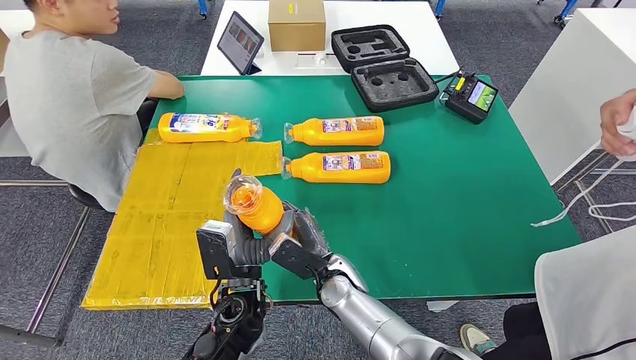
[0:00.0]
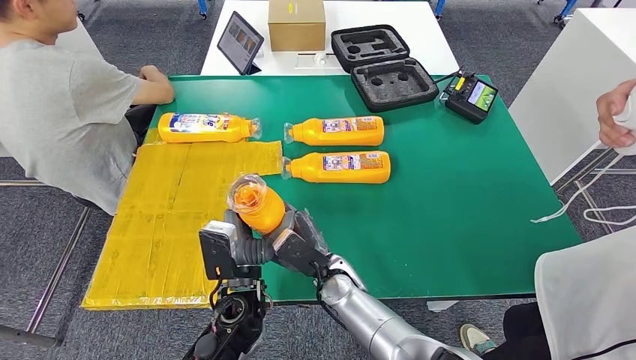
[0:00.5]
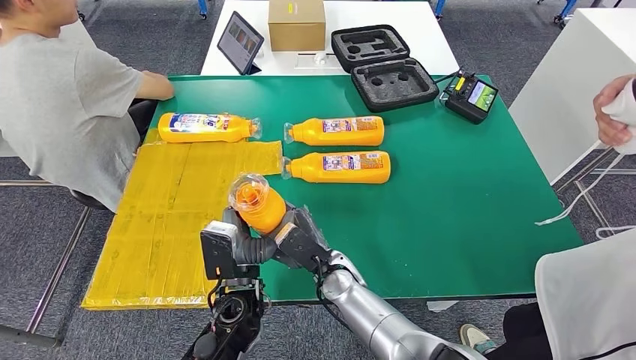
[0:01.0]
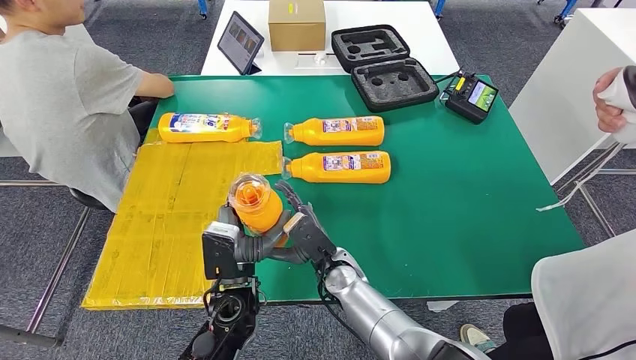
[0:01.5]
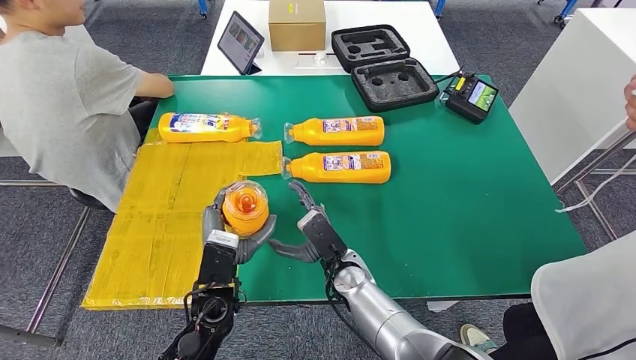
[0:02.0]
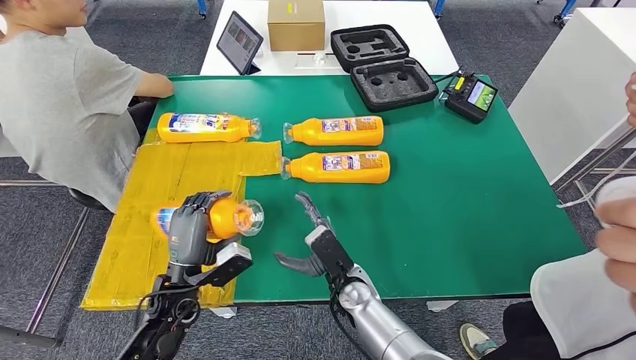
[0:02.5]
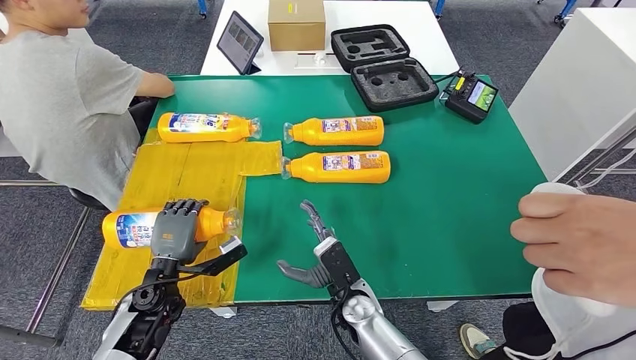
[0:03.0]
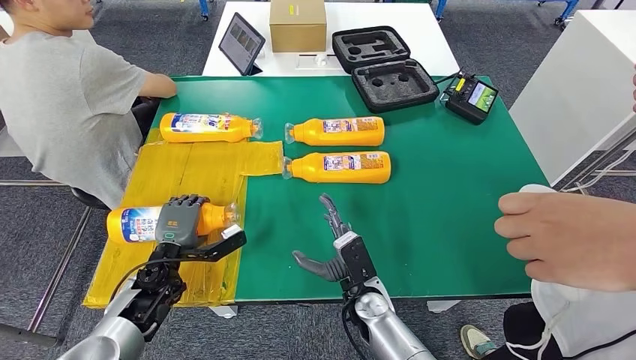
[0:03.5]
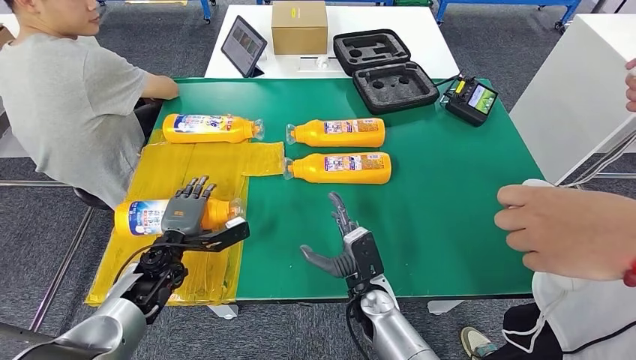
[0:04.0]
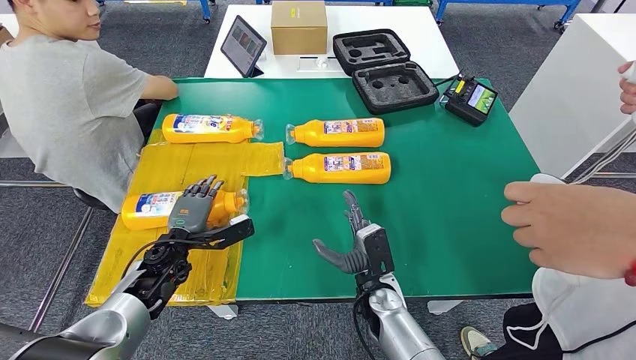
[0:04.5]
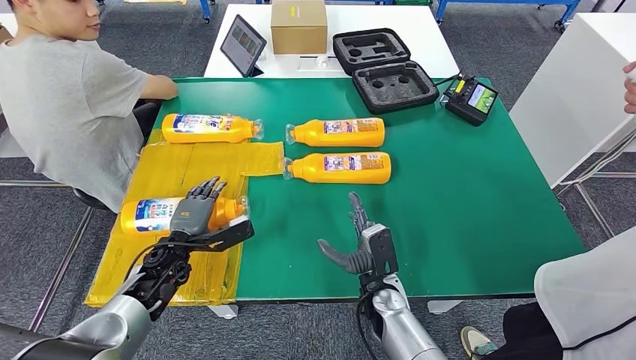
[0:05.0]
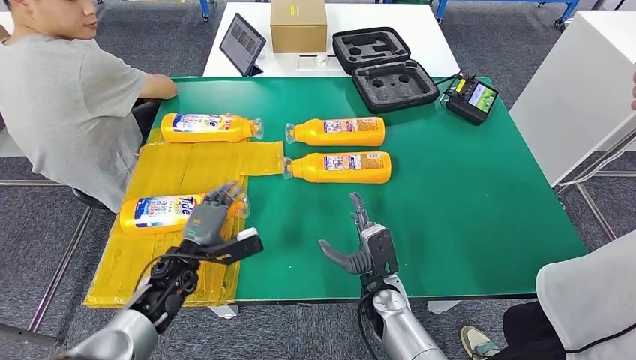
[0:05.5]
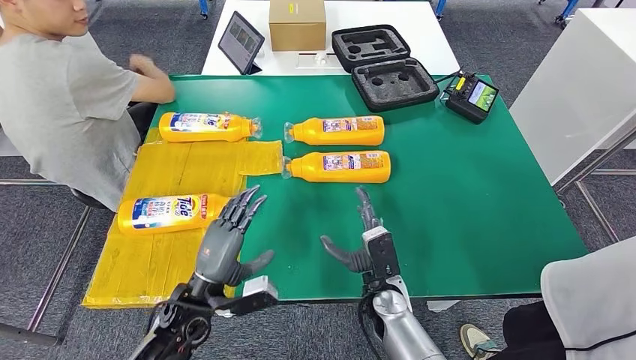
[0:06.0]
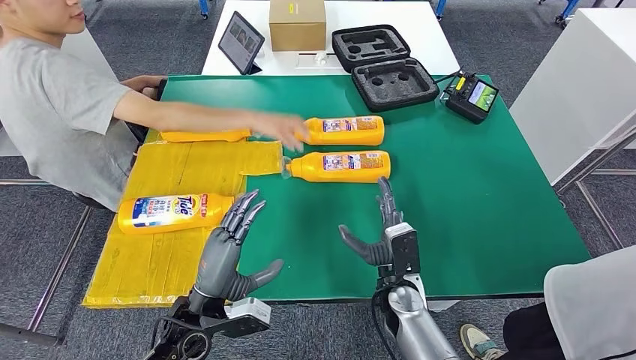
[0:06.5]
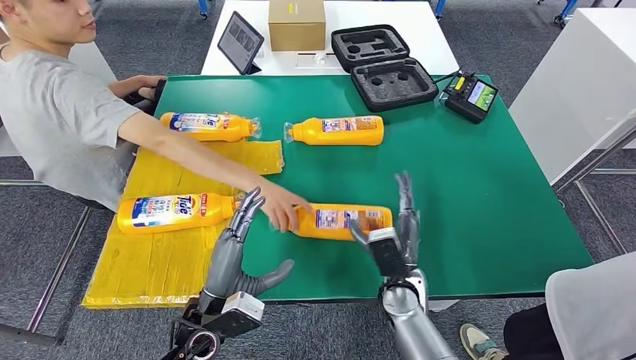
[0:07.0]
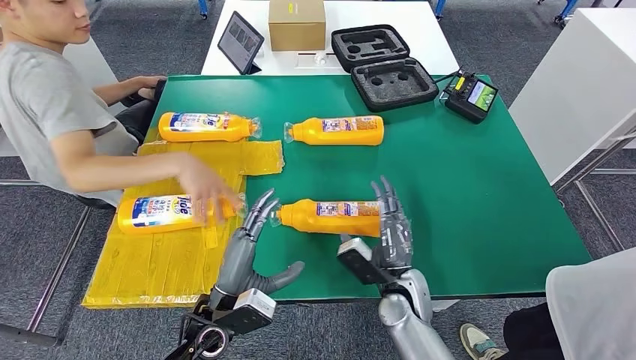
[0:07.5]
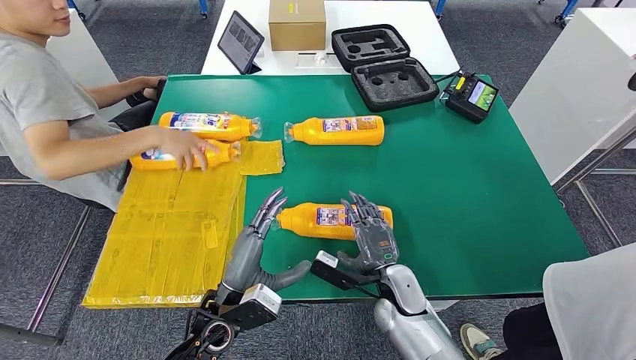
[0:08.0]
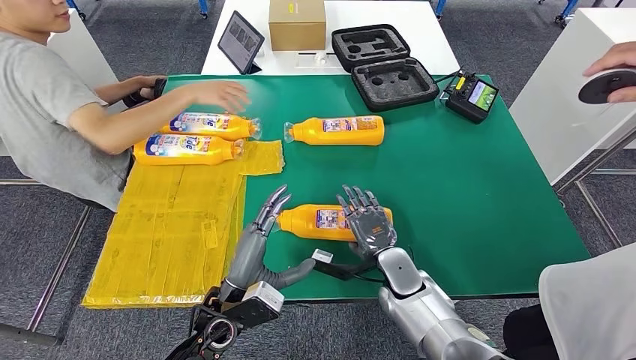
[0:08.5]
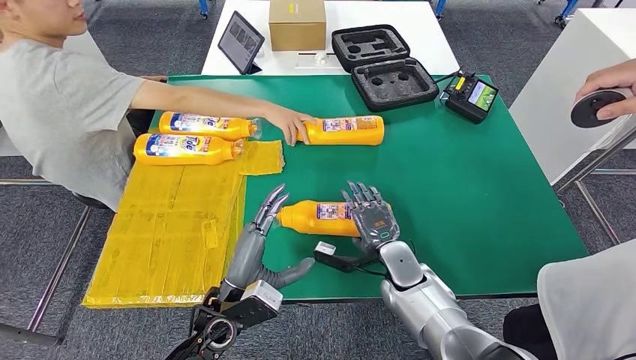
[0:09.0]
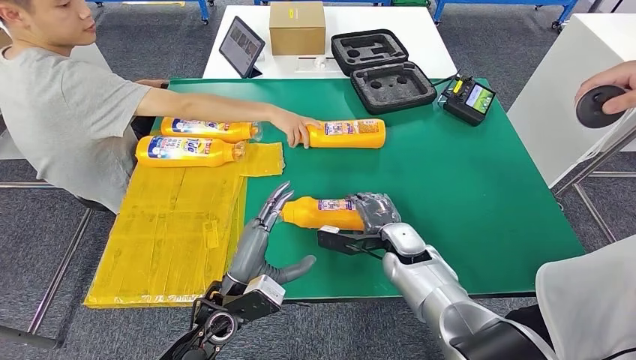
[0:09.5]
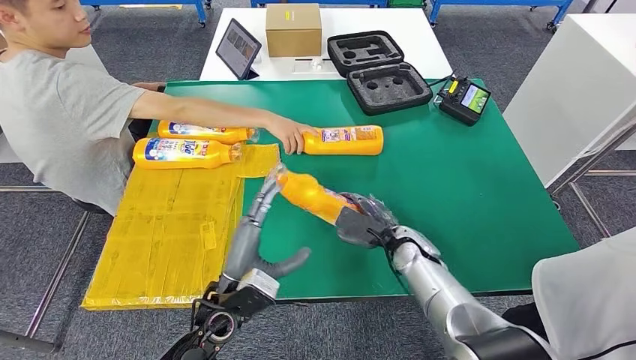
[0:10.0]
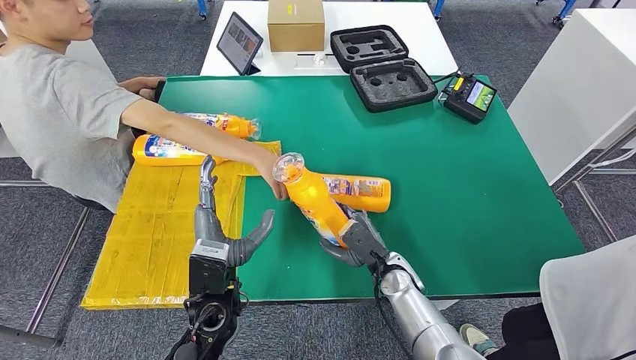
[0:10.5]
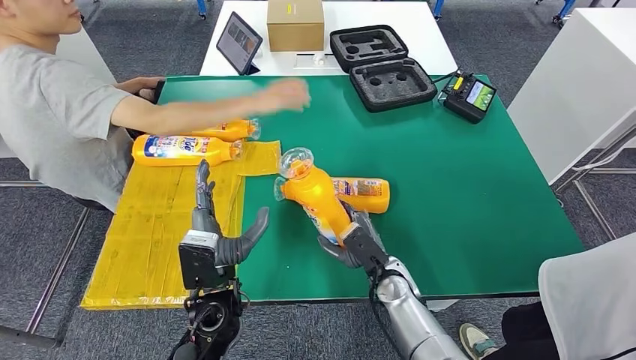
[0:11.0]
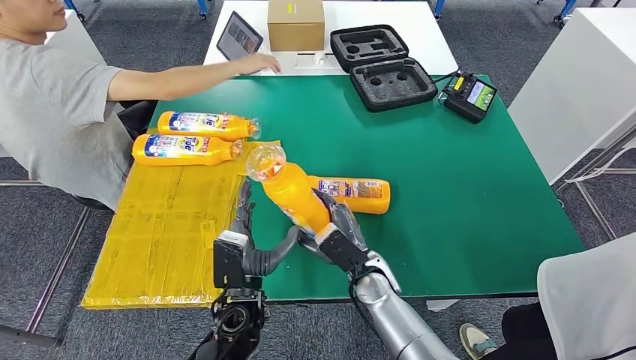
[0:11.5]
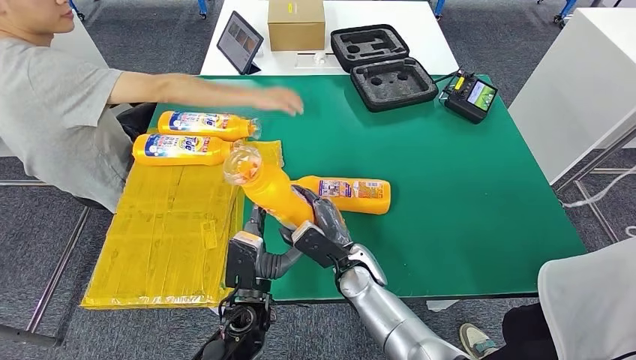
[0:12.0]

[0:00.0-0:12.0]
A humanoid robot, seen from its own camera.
Step, 0:00.0 to 0:04.5: Flip the bottle to face forward.
0:00.0 to 0:02.0: The left hand is displaced to the left by approximately 5 cm.
0:06.0 to 0:08.0: The left hand goes about 5 cm to the right.

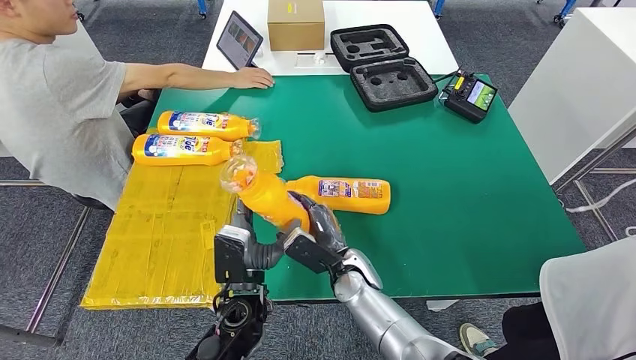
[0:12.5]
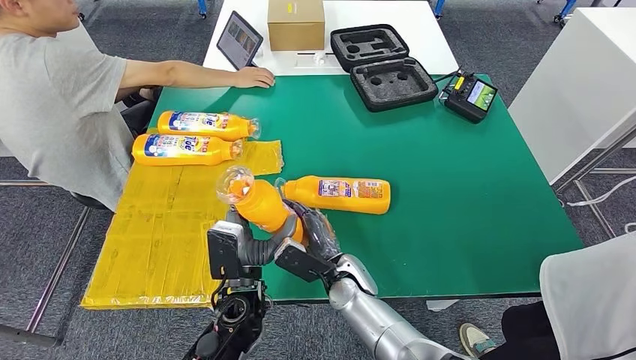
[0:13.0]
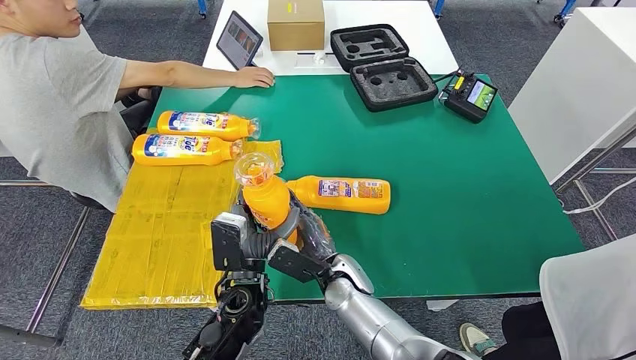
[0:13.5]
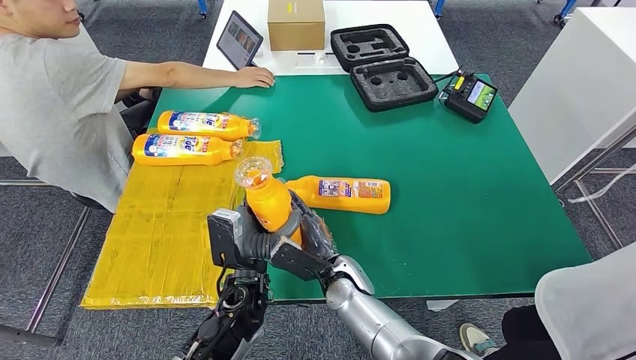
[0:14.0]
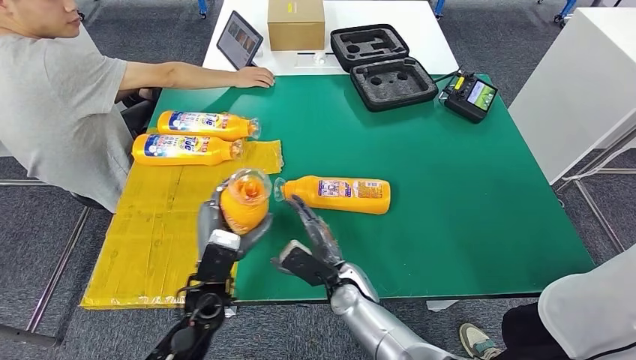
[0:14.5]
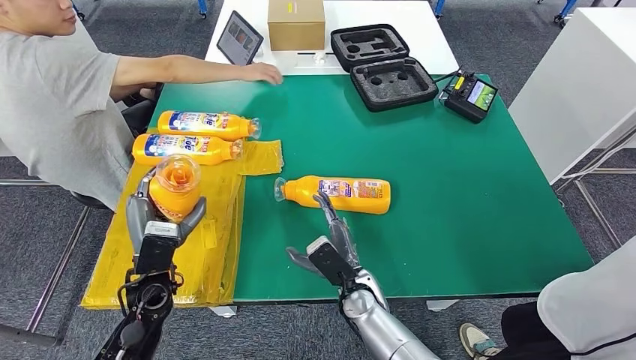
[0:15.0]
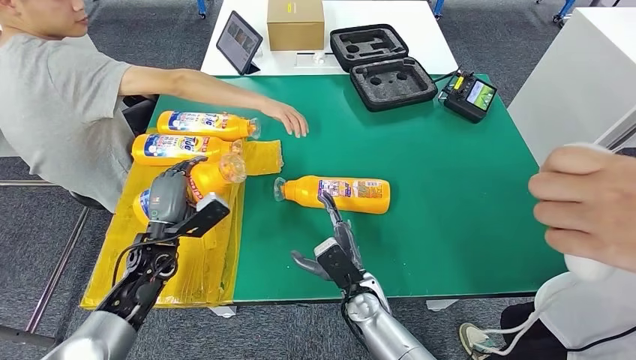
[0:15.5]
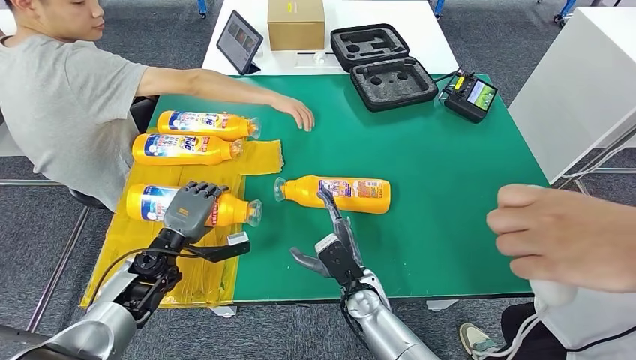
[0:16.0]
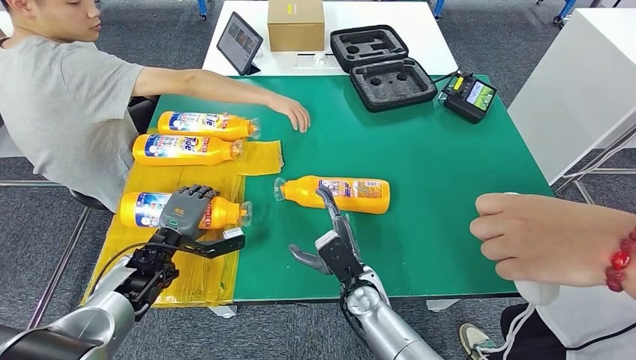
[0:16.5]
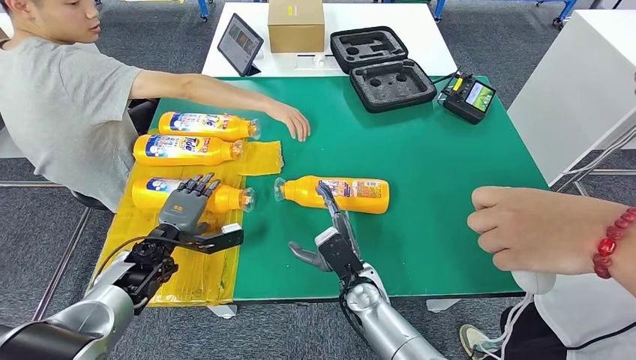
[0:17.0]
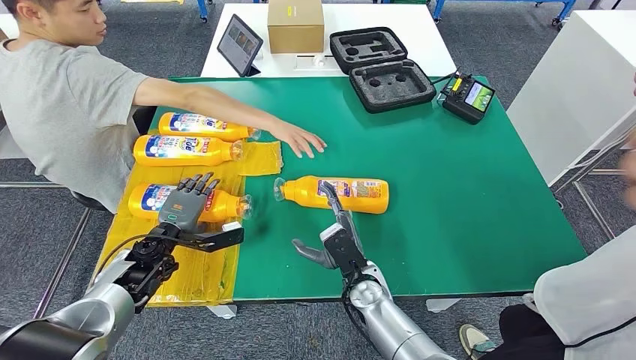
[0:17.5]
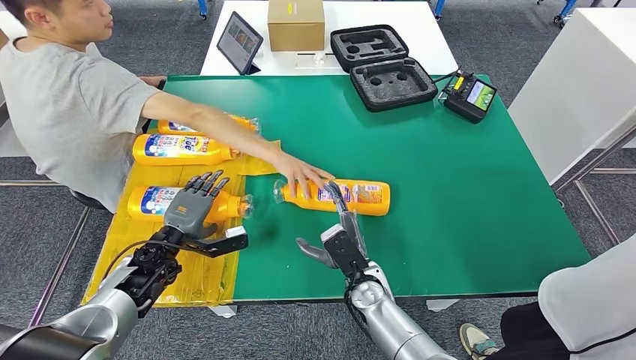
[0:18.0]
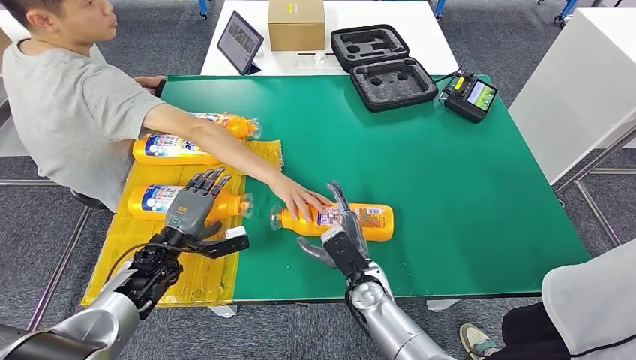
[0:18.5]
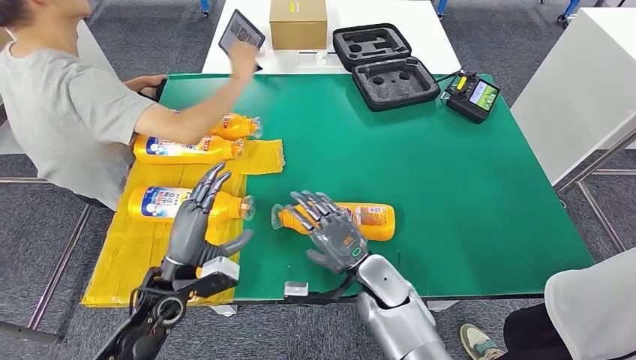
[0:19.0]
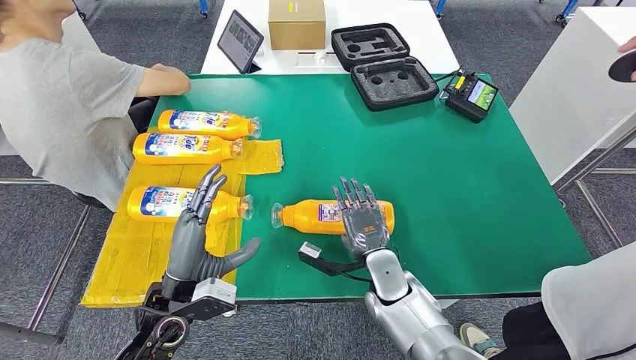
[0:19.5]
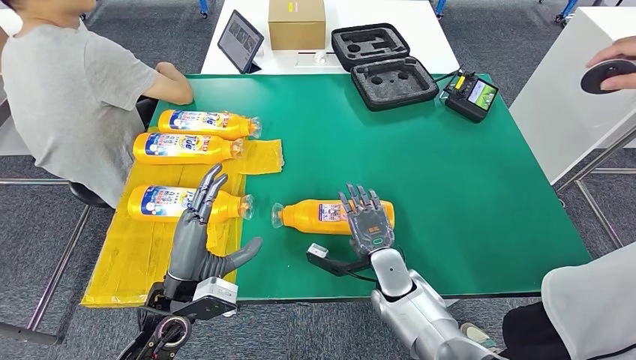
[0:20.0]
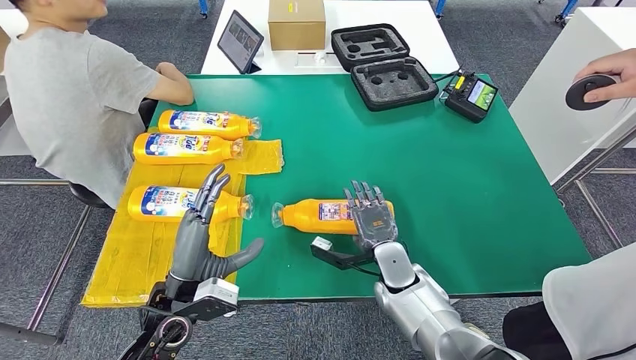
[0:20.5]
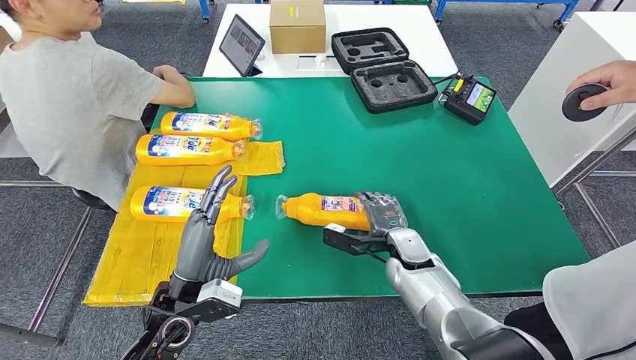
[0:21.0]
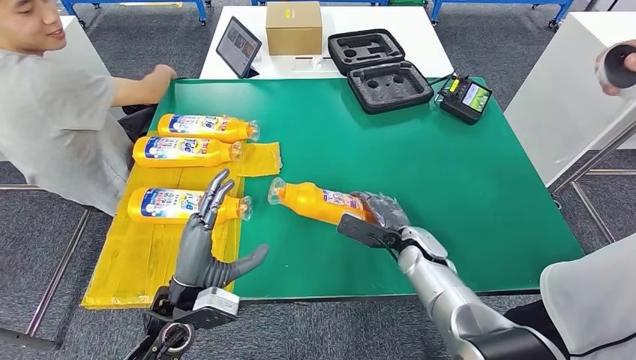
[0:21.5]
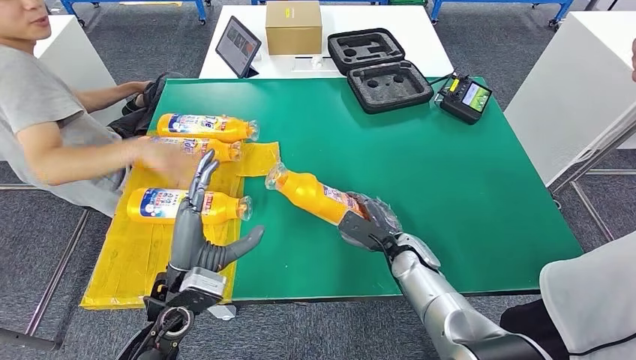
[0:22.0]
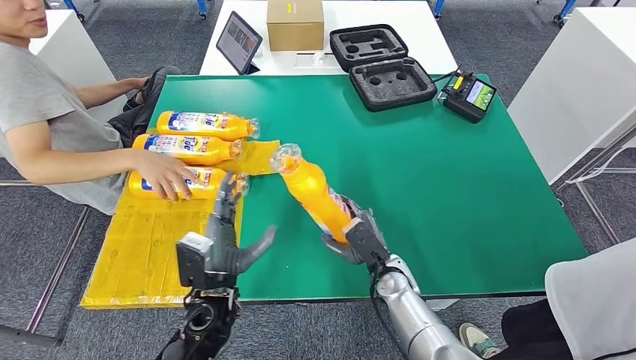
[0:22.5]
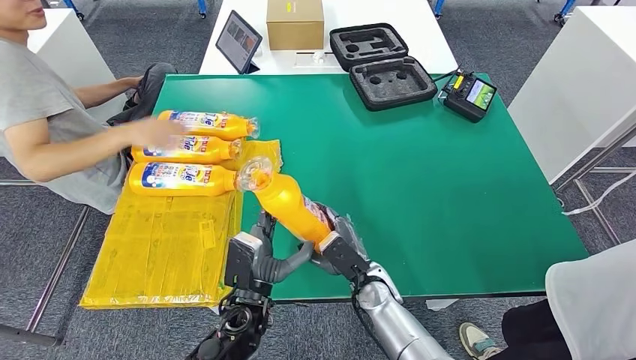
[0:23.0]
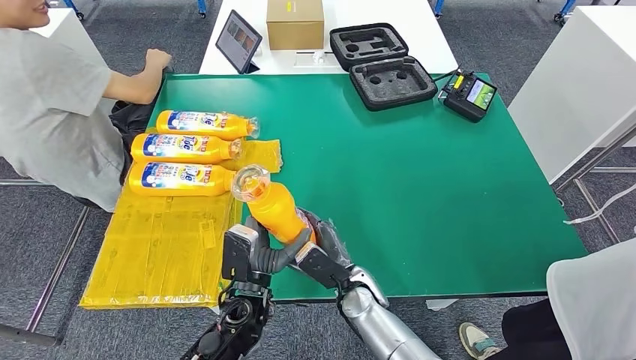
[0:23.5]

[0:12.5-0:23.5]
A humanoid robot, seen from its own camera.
Step, 0:12.5 to 0:16.5: Flip the bottle to face forward.
0:12.5 to 0:14.5: The left hand moves to the left, some 5 cm.
